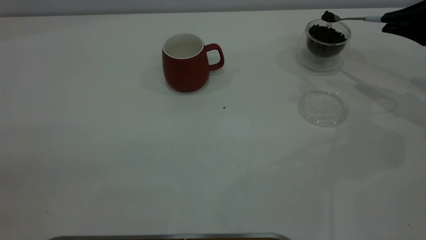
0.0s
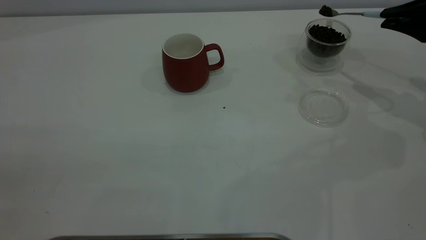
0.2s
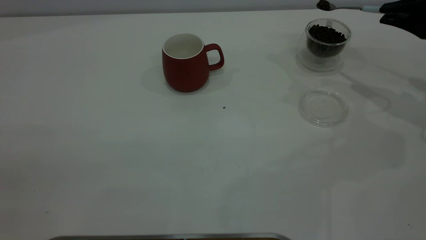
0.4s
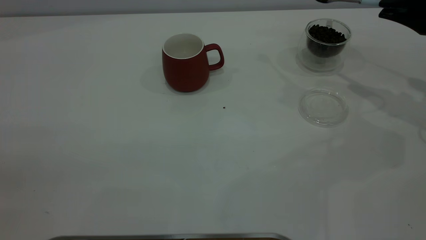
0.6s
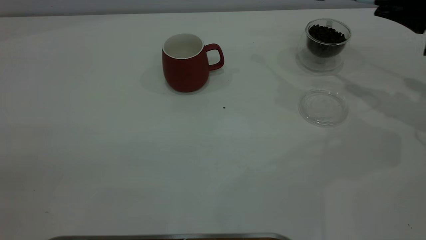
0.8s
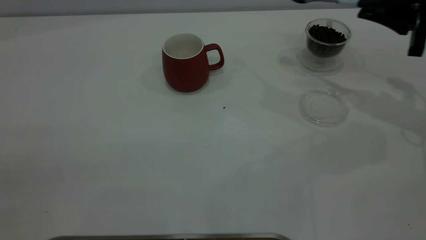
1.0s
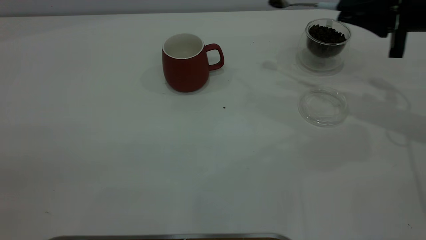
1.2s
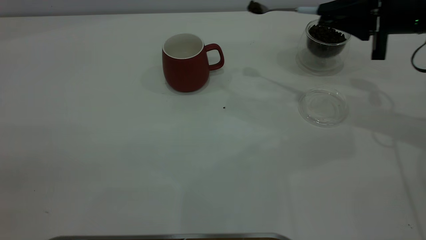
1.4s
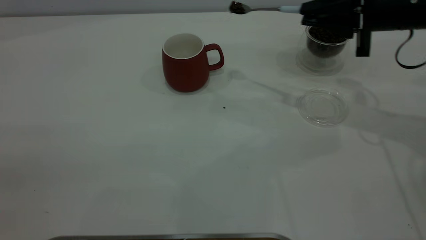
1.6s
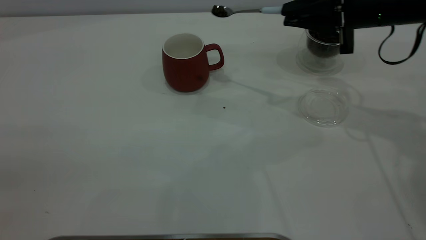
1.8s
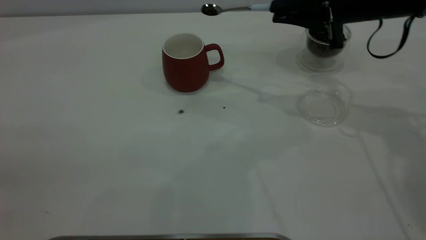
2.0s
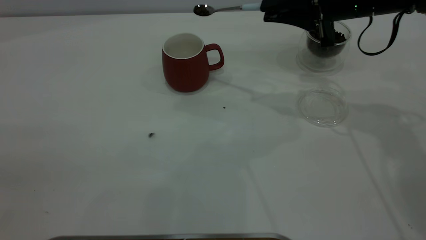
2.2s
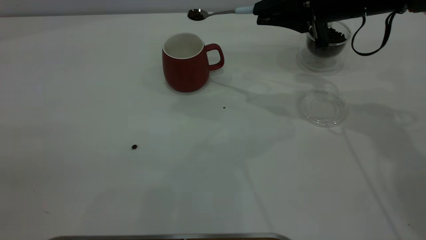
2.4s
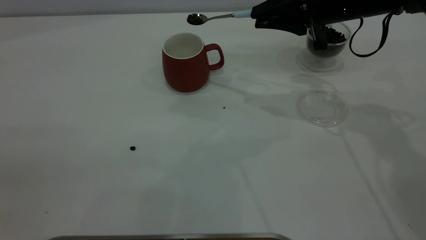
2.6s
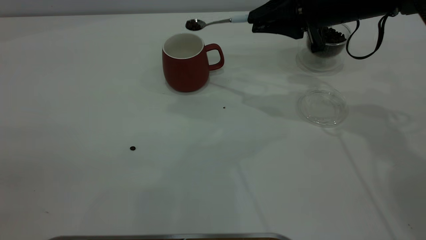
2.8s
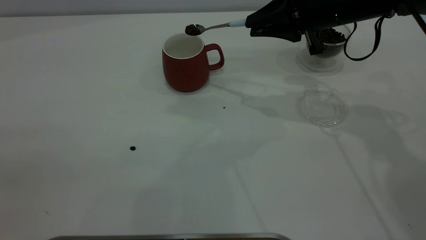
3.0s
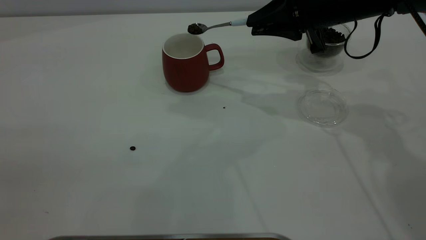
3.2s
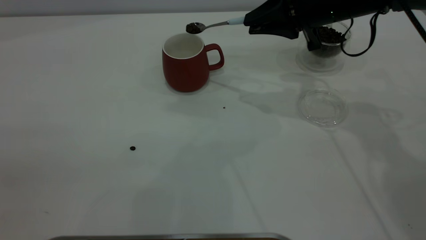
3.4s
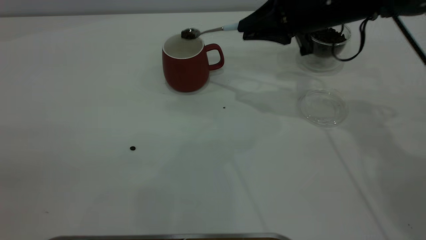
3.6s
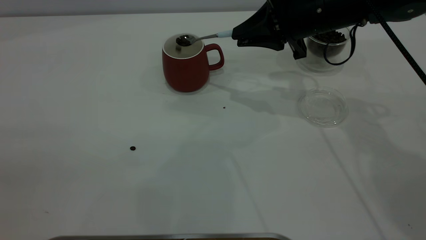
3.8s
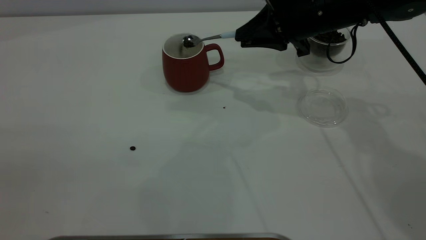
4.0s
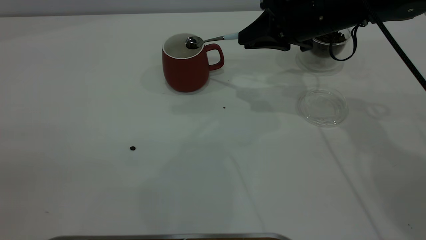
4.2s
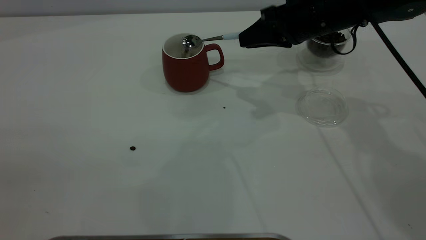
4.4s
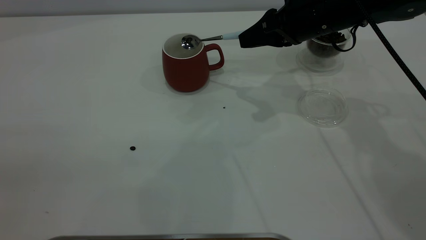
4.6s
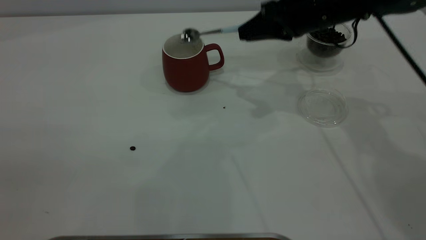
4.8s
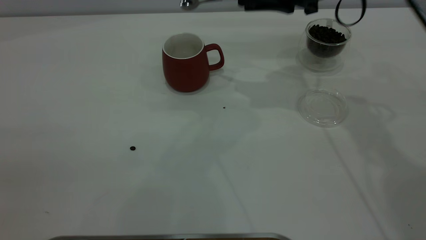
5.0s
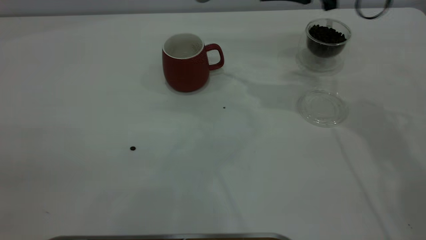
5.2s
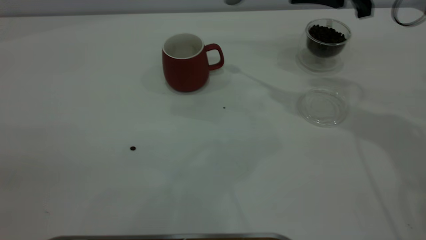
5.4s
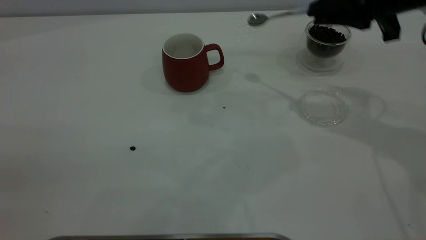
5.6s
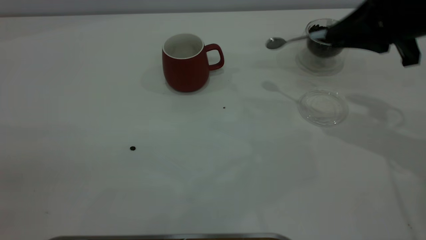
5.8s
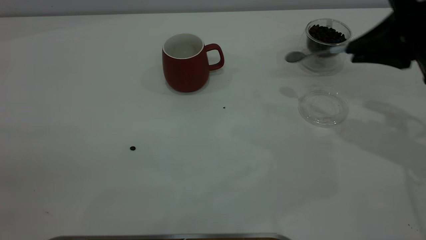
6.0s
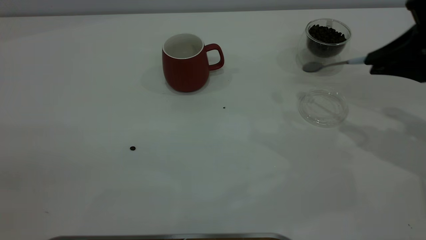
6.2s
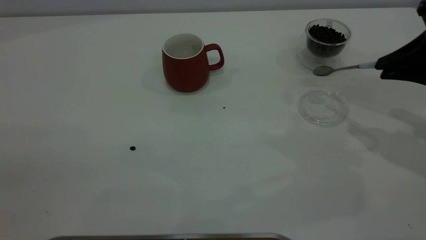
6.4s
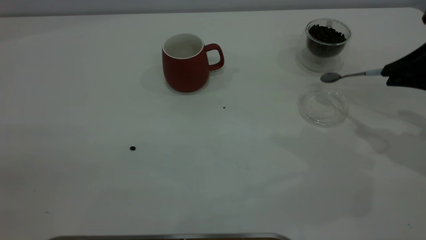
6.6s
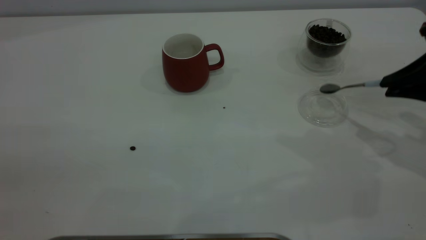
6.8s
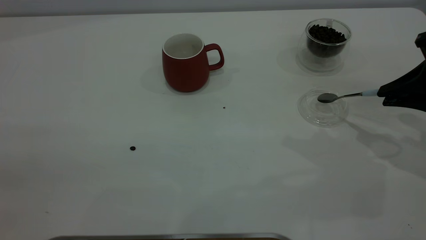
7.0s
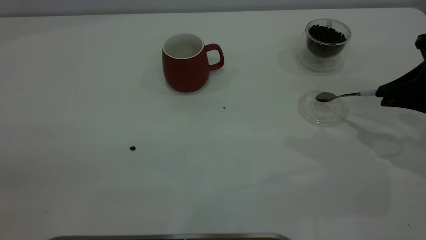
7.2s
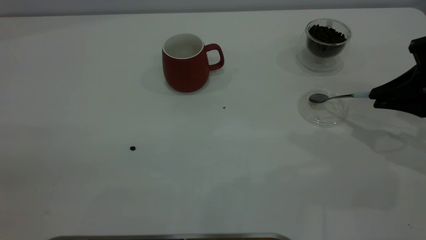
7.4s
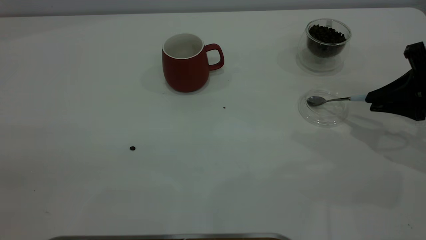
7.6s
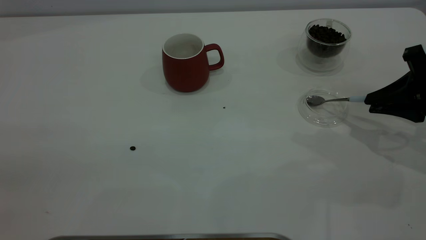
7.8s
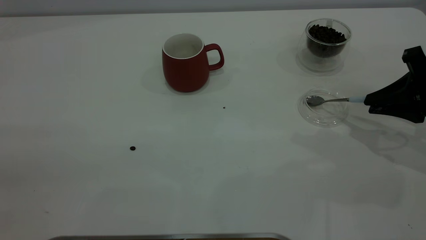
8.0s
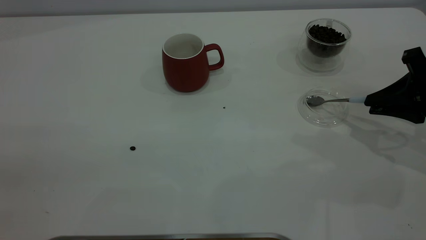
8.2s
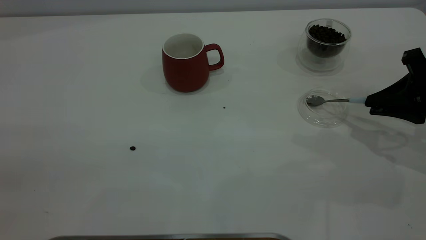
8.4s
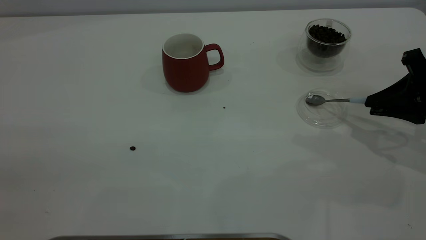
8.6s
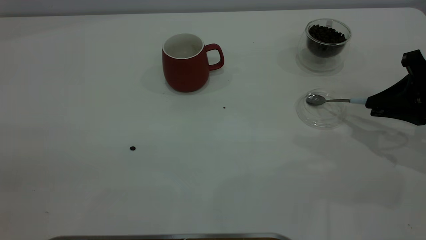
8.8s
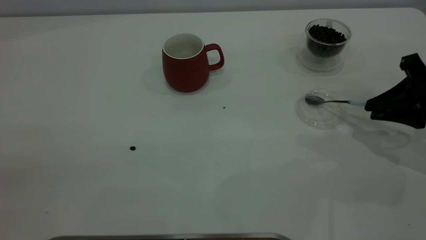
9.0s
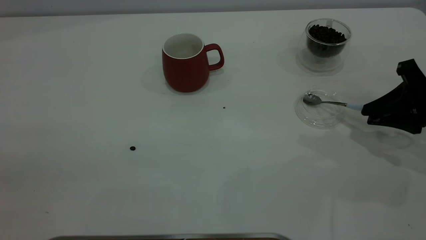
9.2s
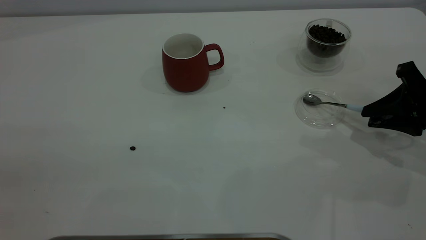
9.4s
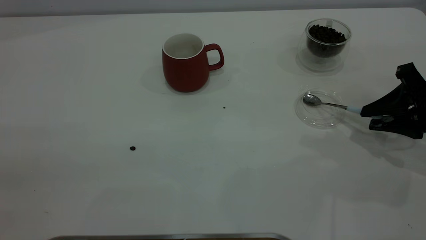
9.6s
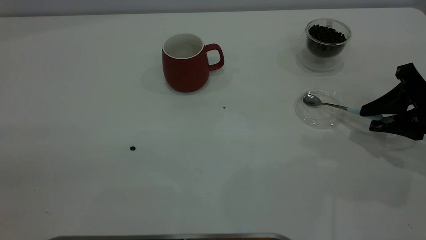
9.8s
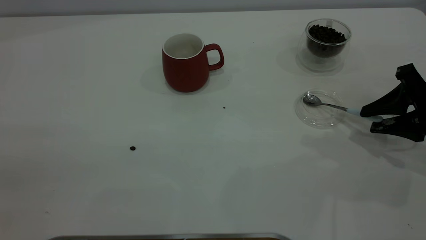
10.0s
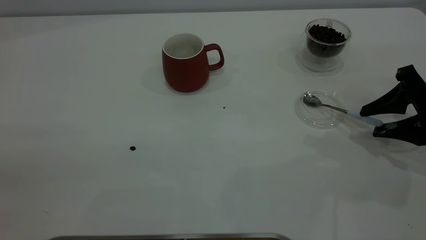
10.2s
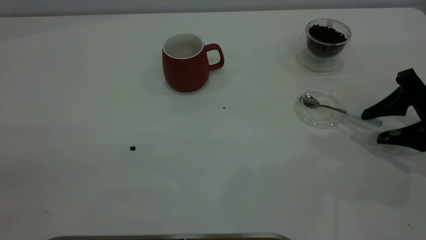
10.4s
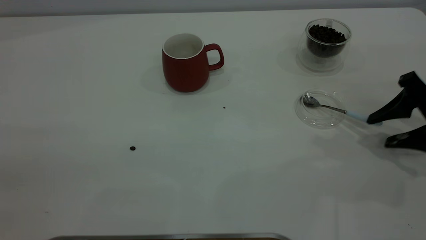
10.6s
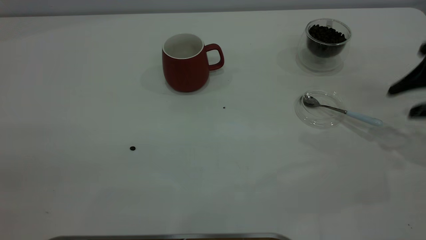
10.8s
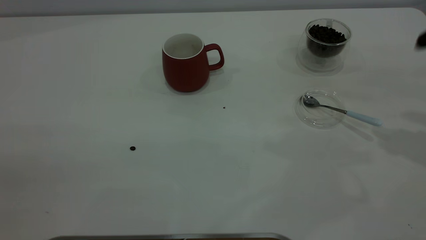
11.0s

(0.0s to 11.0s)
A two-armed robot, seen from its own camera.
Task of the whole recording: the left gripper place the red cup in the center of the table, the right gripper take the blue spoon from the cup lid and scoop out the coffee beans from the coffee cup and put them into the red cup, the right gripper put the spoon back into the cup lid.
Step, 0.0s - 4.8s: Scoop a spoonful of beans into the cup.
Step, 5.0s - 10.6s: Place the spoon back in its original place.
0.0s - 1.6s: The right gripper moves to the left, approximately 10 cm.
1.6s - 3.2s: The right gripper shifts about 5 cm to the left.
4.8s - 6.2s: The right gripper heads to the right and backward, covering some 20 cm.
6.2s - 7.8s: The right gripper shifts about 5 cm downward.
7.8s - 9.4s: There are only small adjustments of the grippers.
9.4s - 11.0s: The right gripper is displaced upward by roughly 15 cm, and opens.
